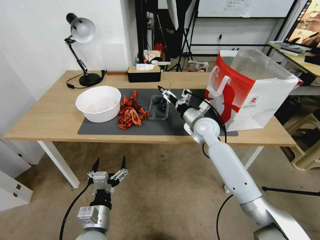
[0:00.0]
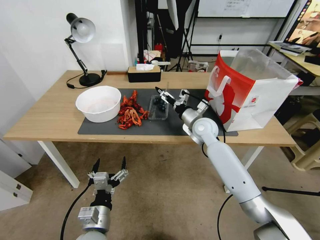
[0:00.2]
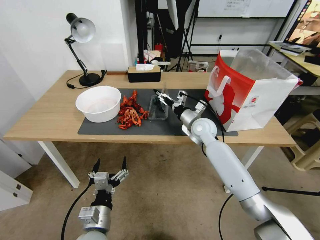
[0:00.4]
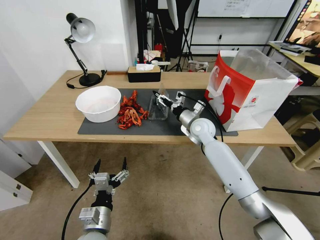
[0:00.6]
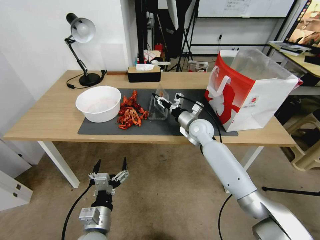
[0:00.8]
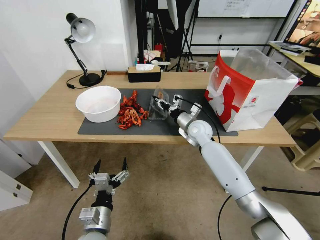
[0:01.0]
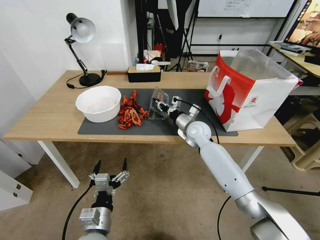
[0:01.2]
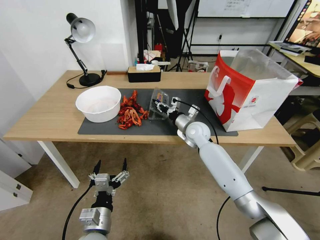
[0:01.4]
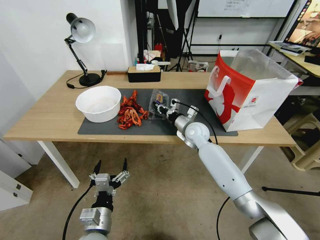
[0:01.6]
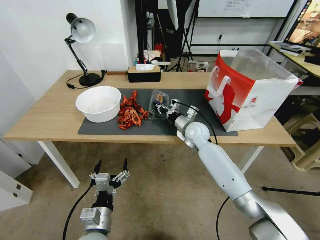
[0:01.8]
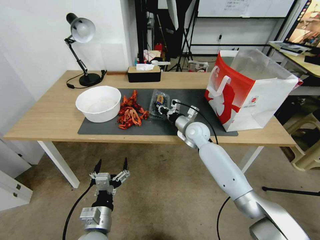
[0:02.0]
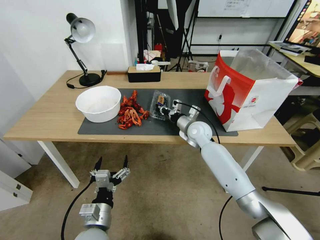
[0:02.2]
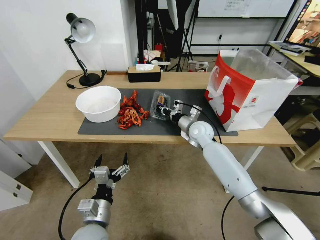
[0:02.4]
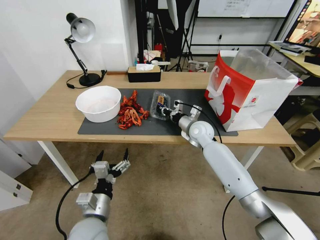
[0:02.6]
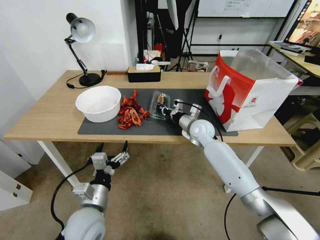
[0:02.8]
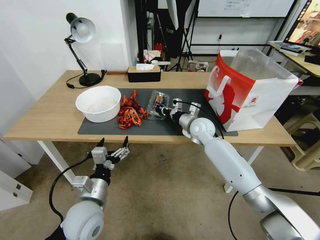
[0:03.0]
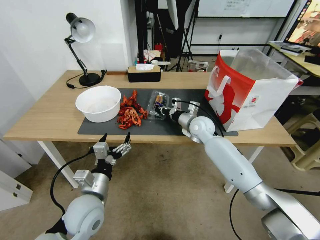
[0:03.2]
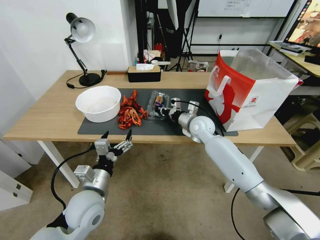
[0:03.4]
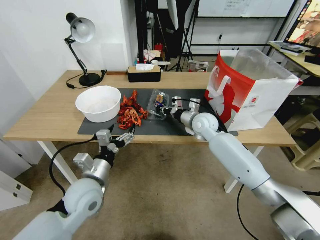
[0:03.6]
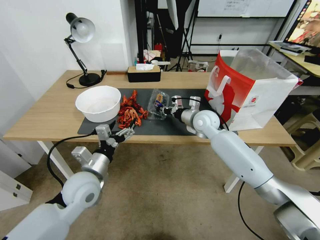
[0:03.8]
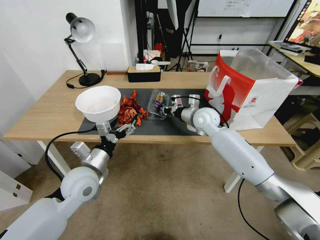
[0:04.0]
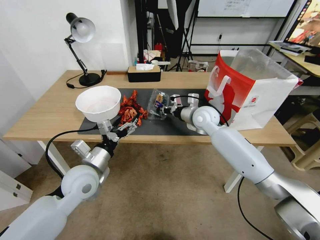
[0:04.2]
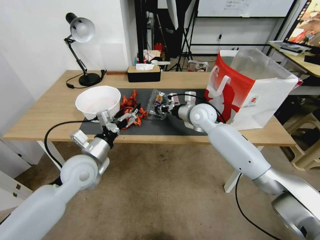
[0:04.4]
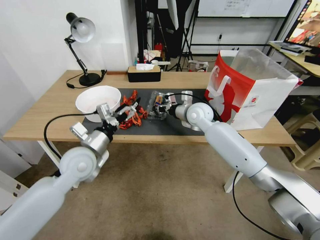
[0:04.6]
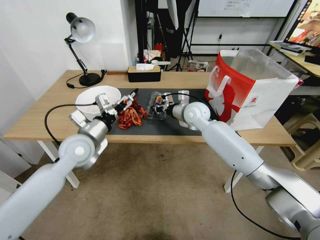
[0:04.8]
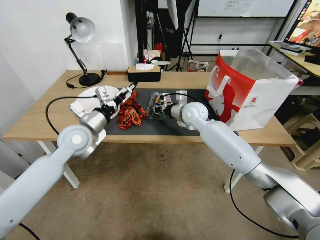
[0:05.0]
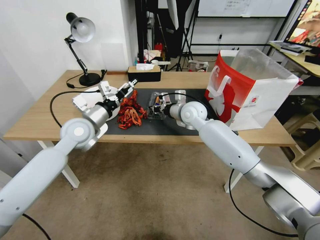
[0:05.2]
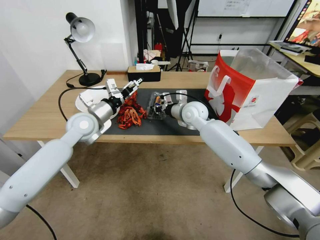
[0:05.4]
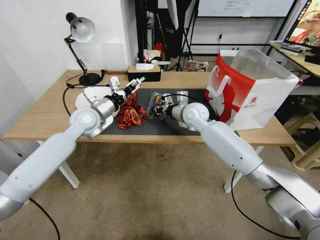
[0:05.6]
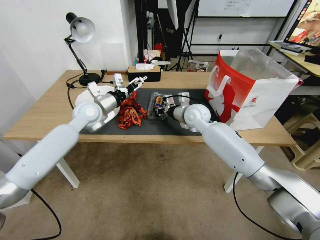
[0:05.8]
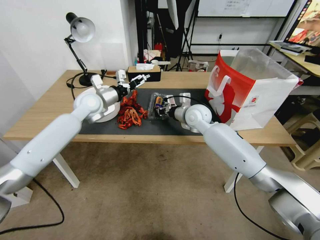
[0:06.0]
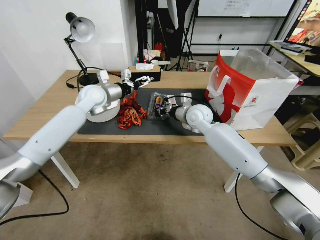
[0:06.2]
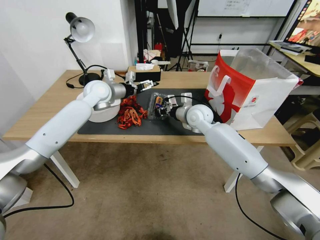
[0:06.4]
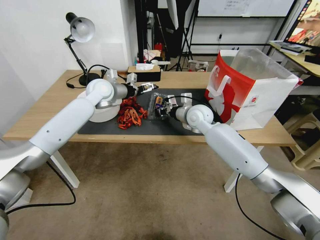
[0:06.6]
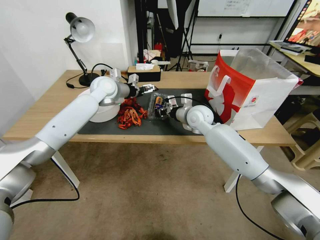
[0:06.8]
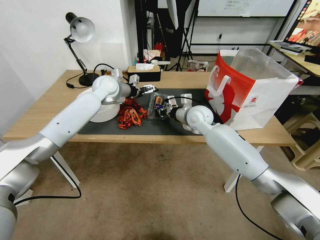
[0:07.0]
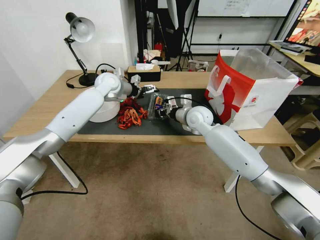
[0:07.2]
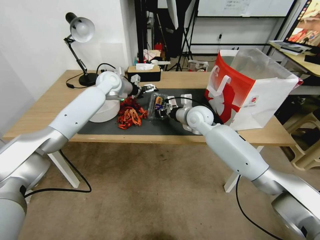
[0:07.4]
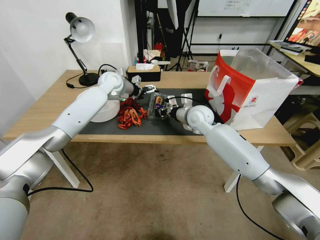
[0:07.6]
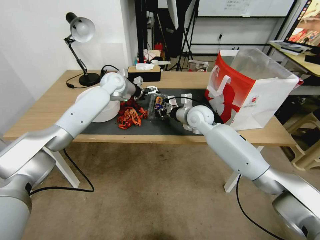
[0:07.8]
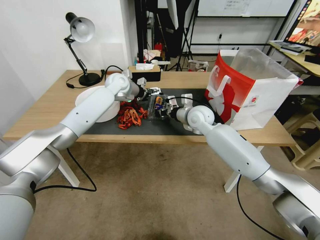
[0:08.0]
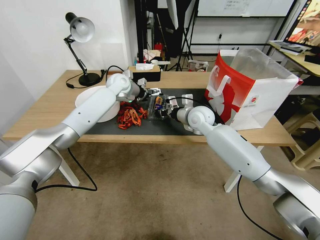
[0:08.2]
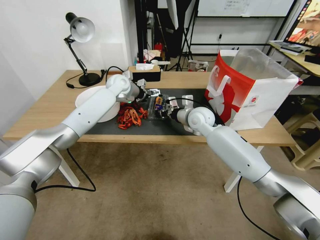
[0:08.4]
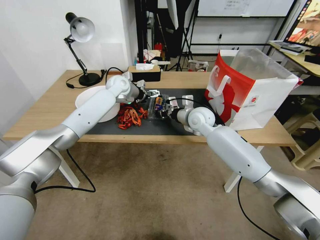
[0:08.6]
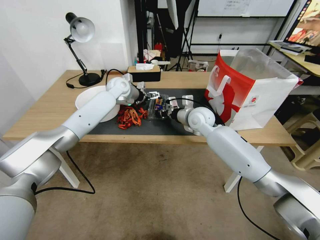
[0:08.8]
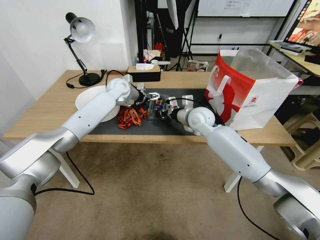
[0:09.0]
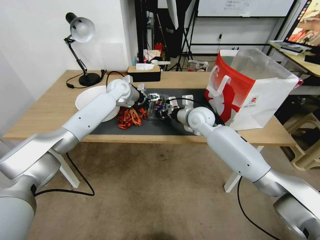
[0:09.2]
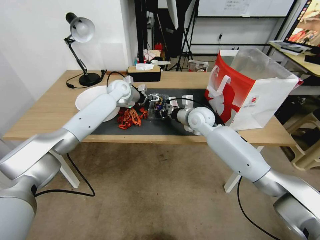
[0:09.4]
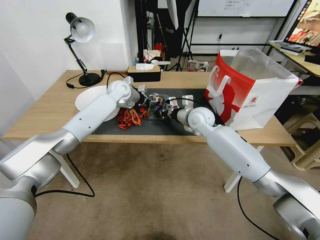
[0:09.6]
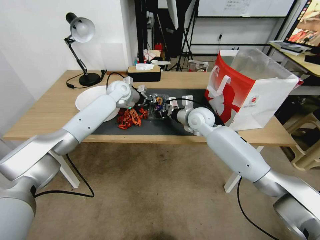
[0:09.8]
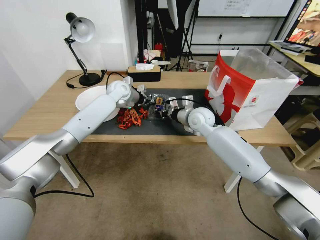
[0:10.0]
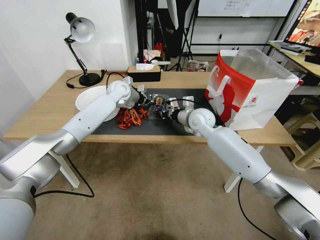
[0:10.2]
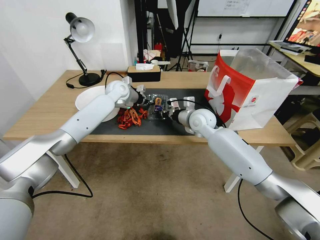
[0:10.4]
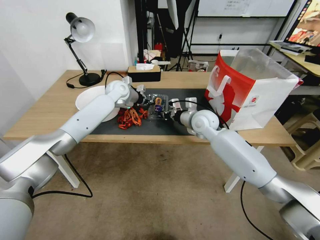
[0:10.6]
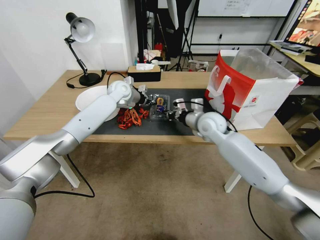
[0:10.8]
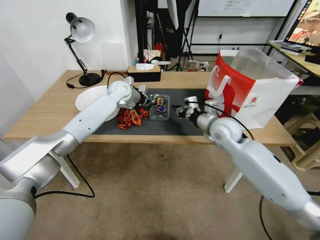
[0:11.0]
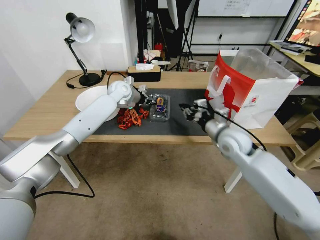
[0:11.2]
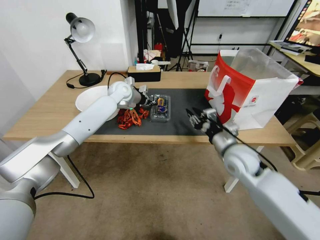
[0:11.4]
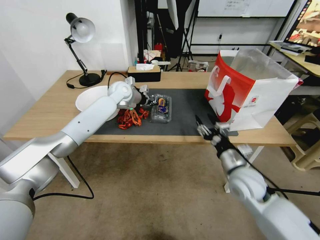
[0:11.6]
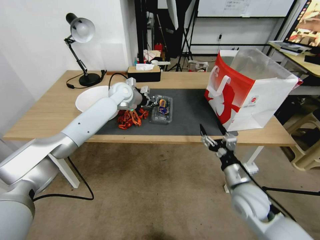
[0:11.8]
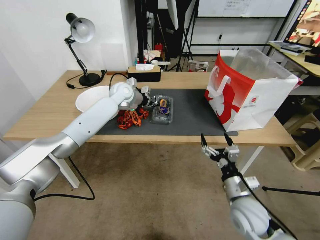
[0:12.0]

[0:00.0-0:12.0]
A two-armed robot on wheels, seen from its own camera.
Task of the whole recording: Close the takeout container lid, then place the container into the takeout bag.
0:00.0 to 0:01.6: The right gripper shifts by approximately 5 cm, and closes.
0:01.6 to 0:03.0: The left gripper travels forward and upward by approximately 10 cm.
0:03.0 to 0:04.4: The left gripper heads forward and upward, covering some 10 cm, while the right gripper is displaced upward by some 5 cm.
0:04.4 to 0:06.0: The left gripper is displaced forward and upward by approximately 25 cm.
0:06.0 to 0:07.6: The left gripper is displaced forward and to the right by roughly 10 cm.
0:07.6 to 0:09.0: There are only small adjustments of the grippers.
0:09.0 to 0:10.4: The left gripper closes up.
0:10.4 to 0:12.0: The right gripper shifts about 30 cm backward and downward, and opens its fingers.

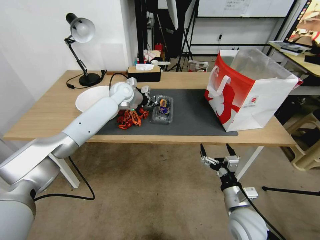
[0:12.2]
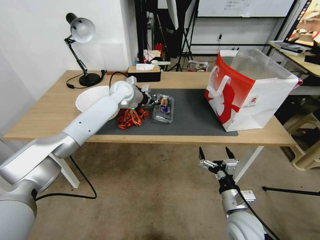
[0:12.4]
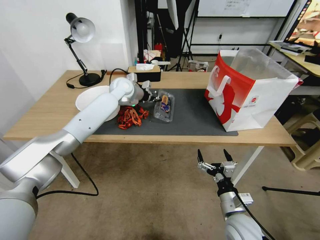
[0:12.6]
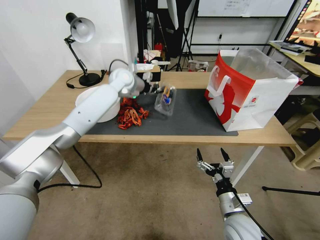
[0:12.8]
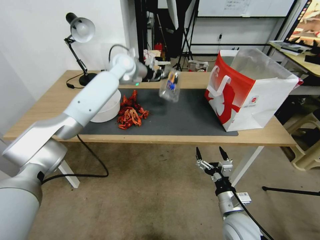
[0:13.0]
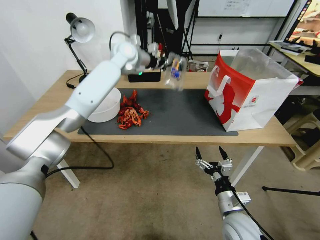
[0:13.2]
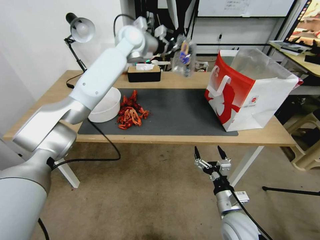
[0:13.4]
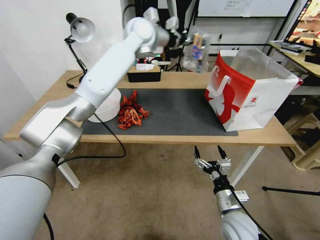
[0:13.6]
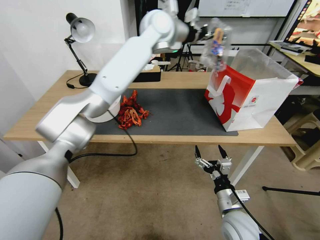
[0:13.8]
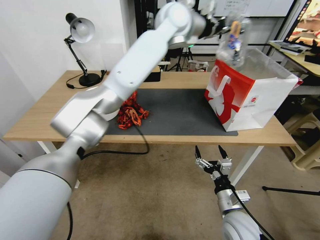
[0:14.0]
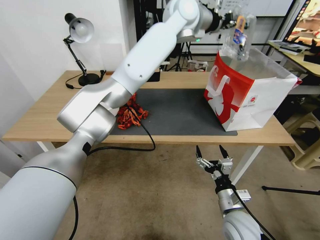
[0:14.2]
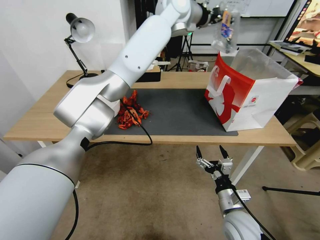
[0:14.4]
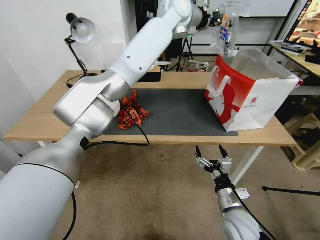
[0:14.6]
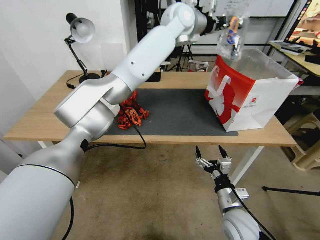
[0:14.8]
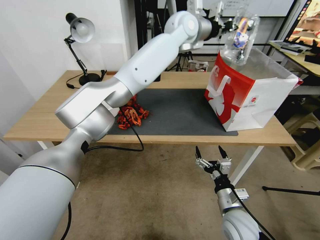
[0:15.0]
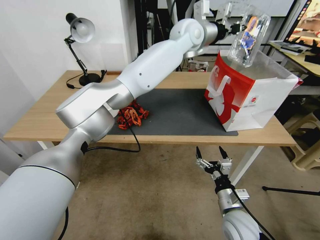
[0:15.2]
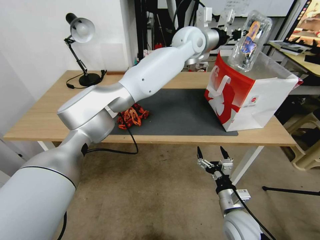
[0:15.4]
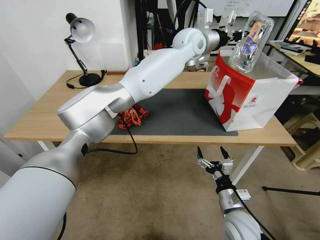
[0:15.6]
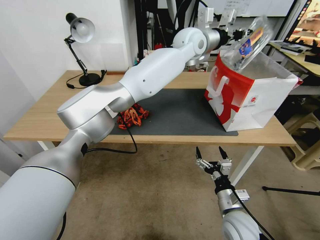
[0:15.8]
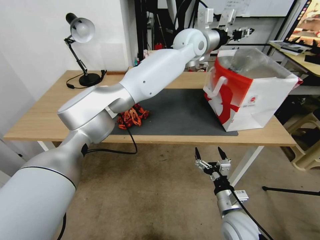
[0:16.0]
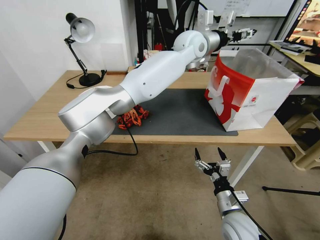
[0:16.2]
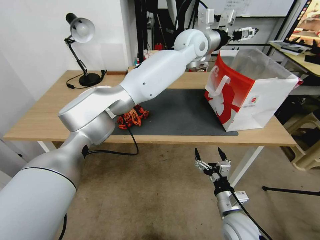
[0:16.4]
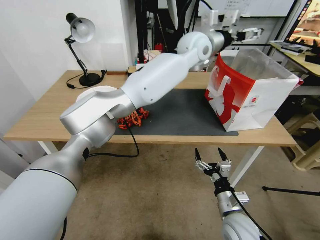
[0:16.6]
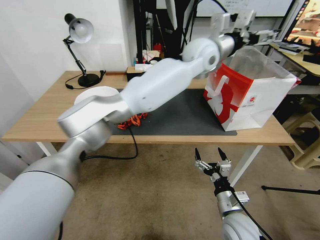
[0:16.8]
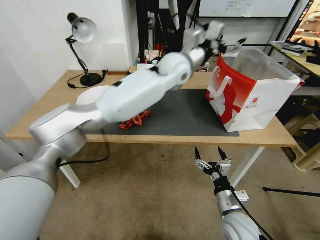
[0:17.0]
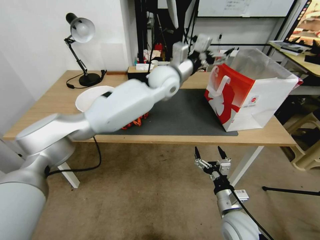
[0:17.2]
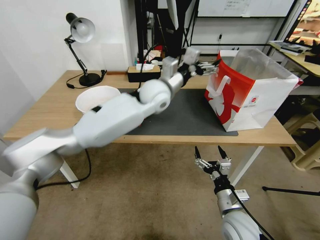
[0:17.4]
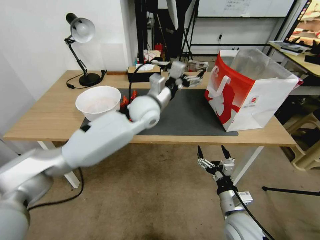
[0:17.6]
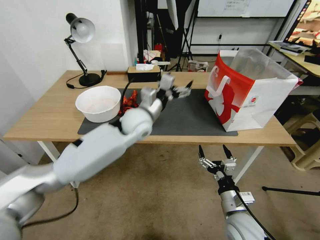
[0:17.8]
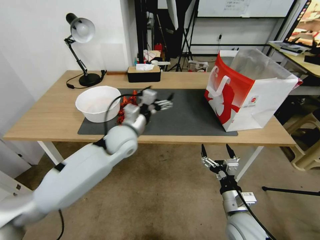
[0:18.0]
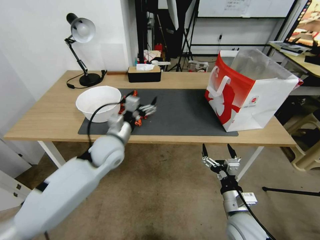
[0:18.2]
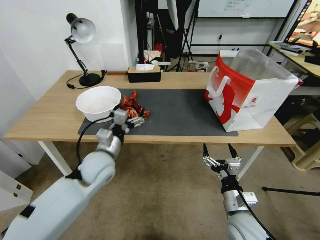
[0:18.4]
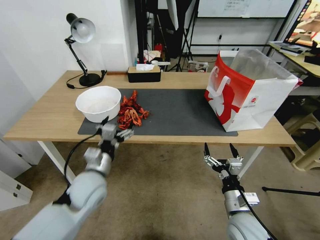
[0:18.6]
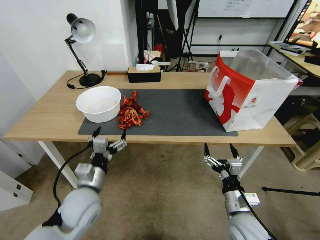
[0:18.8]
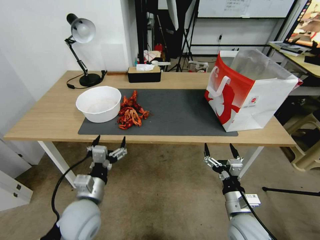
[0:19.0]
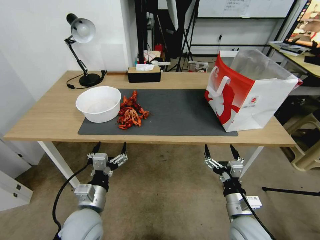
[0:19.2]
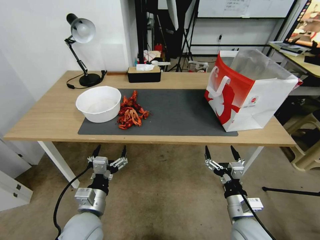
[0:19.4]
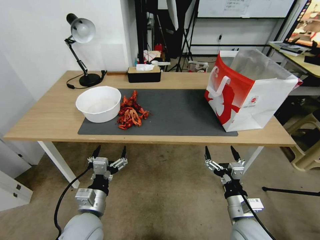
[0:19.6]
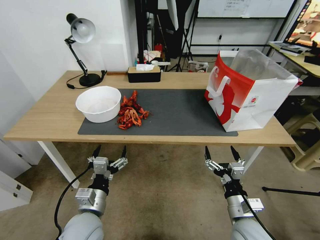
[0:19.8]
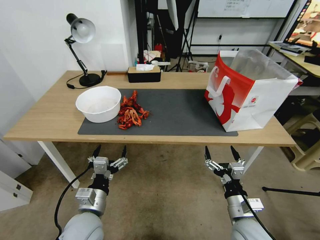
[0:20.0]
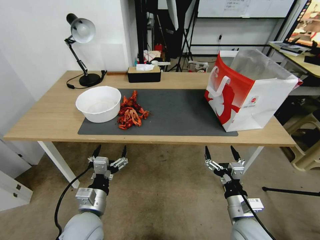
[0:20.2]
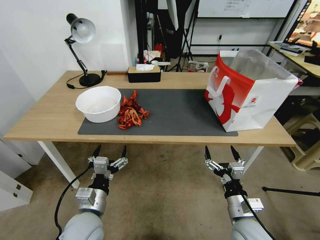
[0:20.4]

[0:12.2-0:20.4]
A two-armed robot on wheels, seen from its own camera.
Task of the whole recording: Close the takeout container lid, then place the container into the takeout bag.
0:12.2 to 0:13.8: The left gripper heads upward and to the right, covering about 30 cm.
0:13.8 to 0:15.4: The left gripper travels to the right by about 10 cm.
0:15.4 to 0:17.2: The left gripper heads downward, backward and to the left, covering roughly 10 cm, and opens its fingers.
0:17.2 to 0:18.8: The left gripper travels backward, to the left and downward by roughly 40 cm.
0:18.8 to 0:20.4: The left gripper travels backward by about 5 cm.

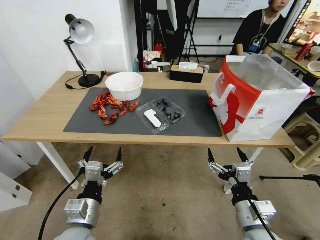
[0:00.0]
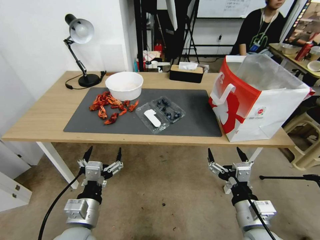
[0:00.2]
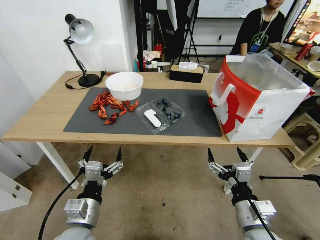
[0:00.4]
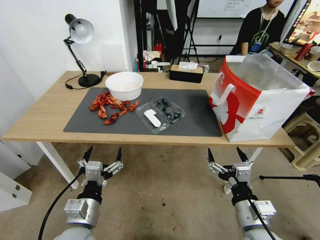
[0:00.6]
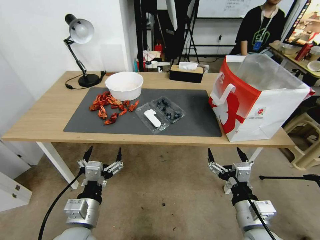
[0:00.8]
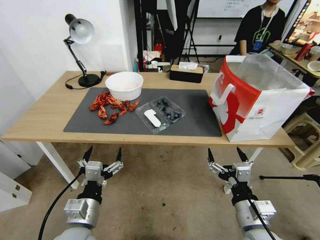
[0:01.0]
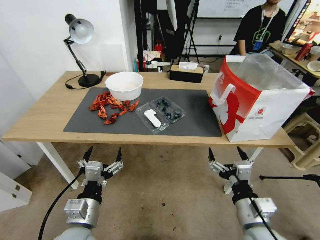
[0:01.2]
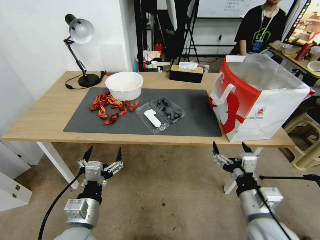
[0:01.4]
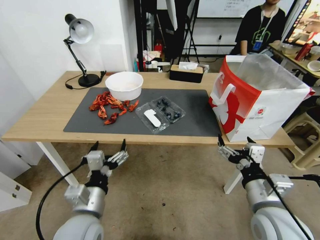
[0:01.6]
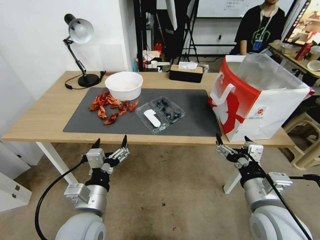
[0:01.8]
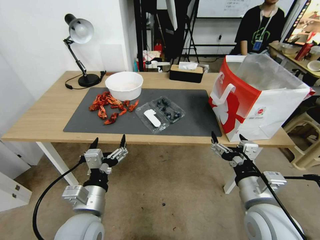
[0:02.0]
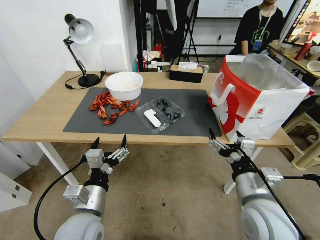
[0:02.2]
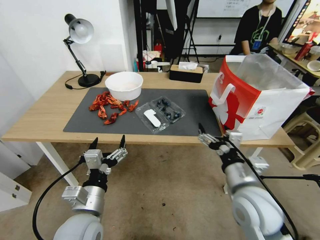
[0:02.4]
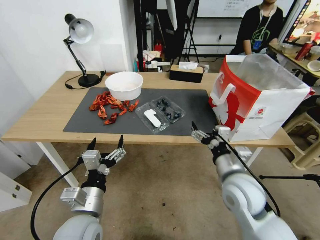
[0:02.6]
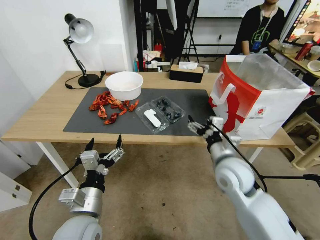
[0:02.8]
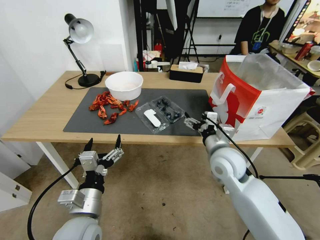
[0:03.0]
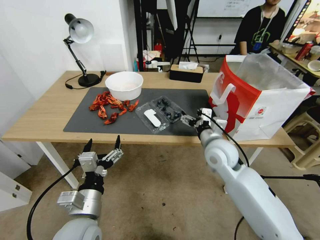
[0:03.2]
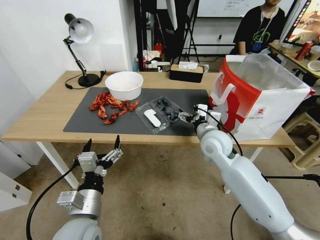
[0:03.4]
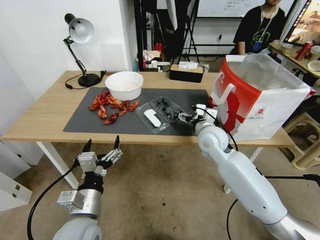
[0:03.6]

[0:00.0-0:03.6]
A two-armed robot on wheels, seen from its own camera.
Task of the whole recording: Close the takeout container lid, then place the container into the takeout bag.
0:01.8 to 0:03.6: The right gripper shifts roughly 25 cm forward.
